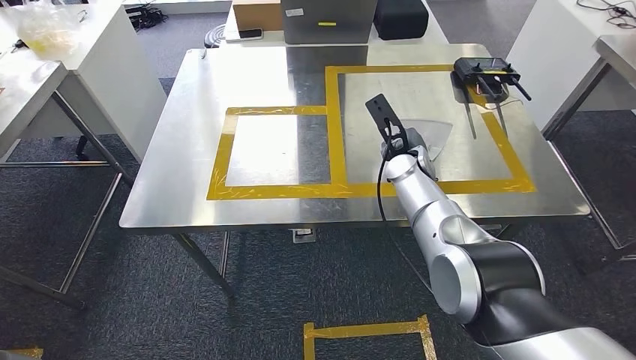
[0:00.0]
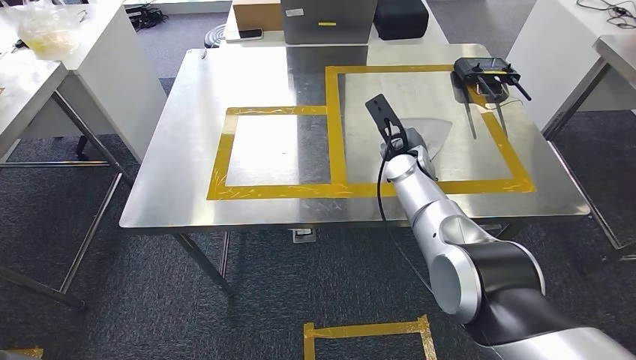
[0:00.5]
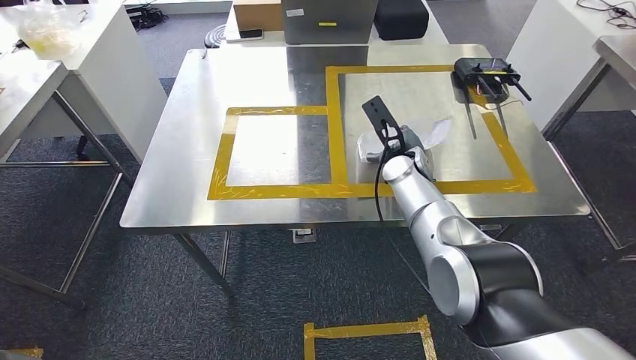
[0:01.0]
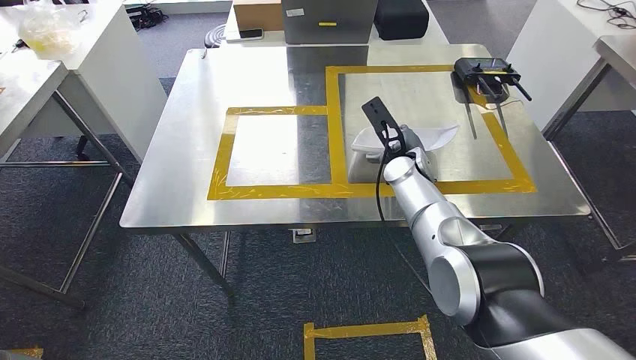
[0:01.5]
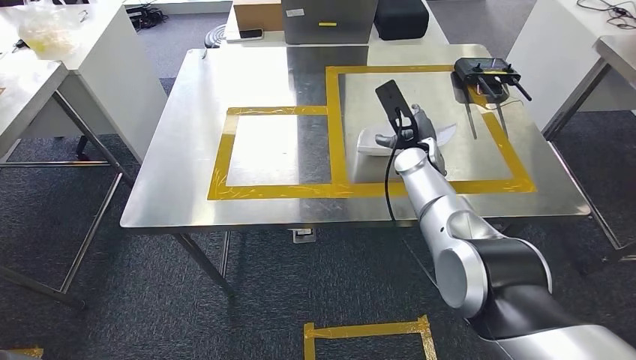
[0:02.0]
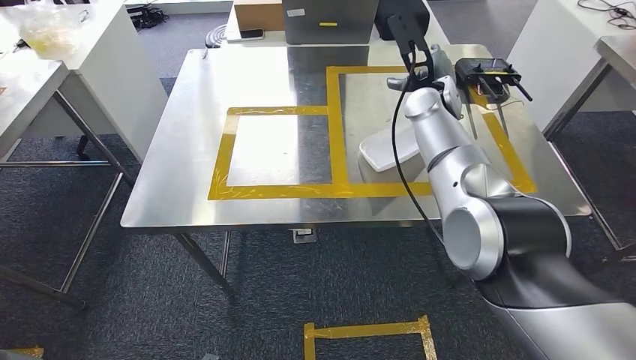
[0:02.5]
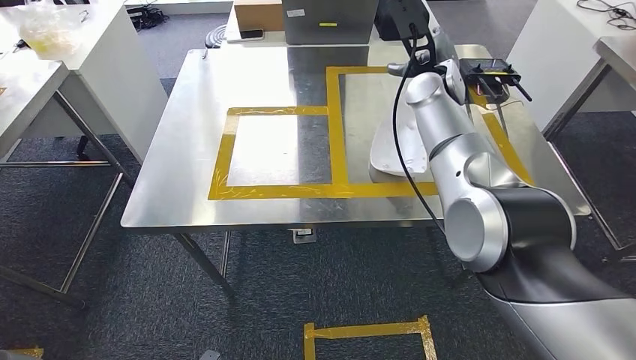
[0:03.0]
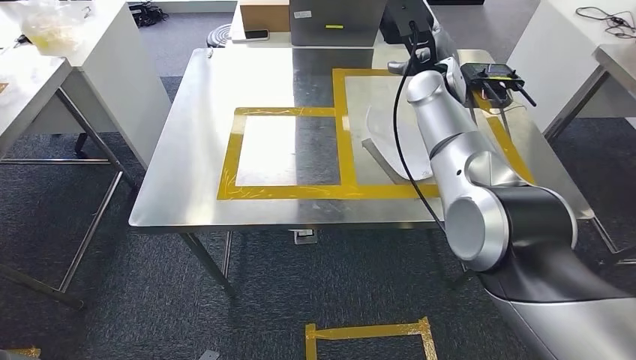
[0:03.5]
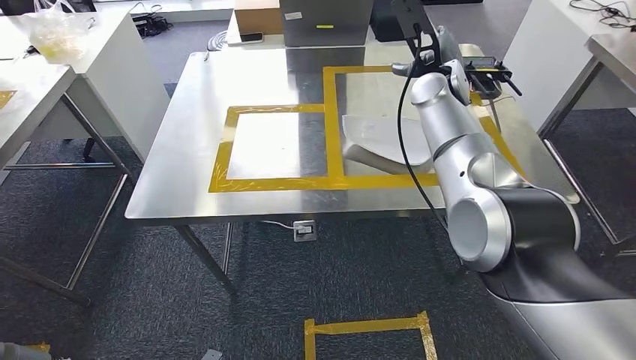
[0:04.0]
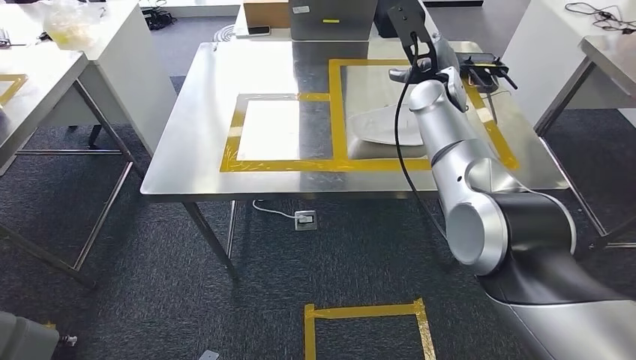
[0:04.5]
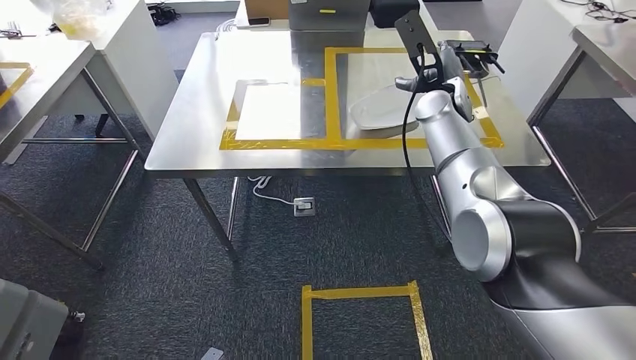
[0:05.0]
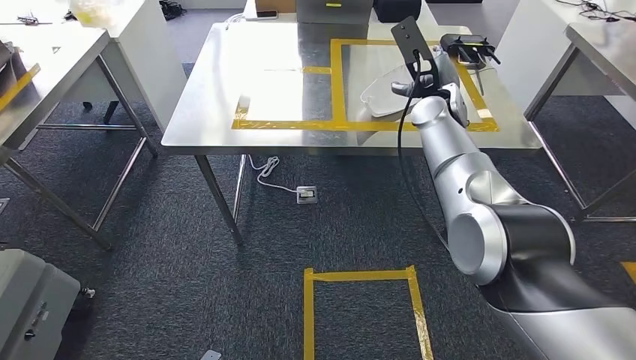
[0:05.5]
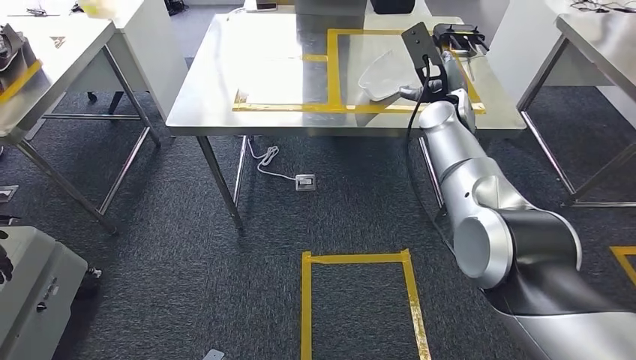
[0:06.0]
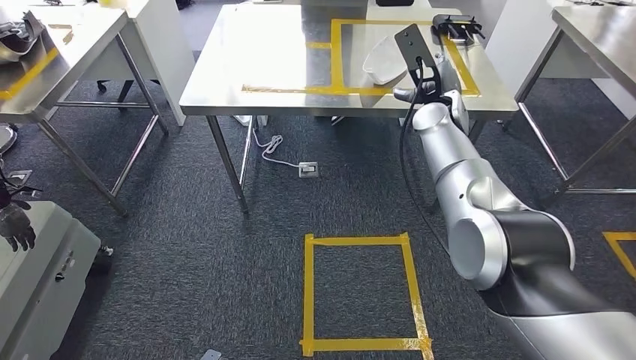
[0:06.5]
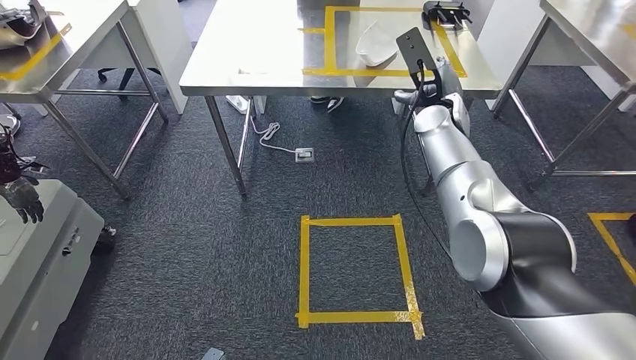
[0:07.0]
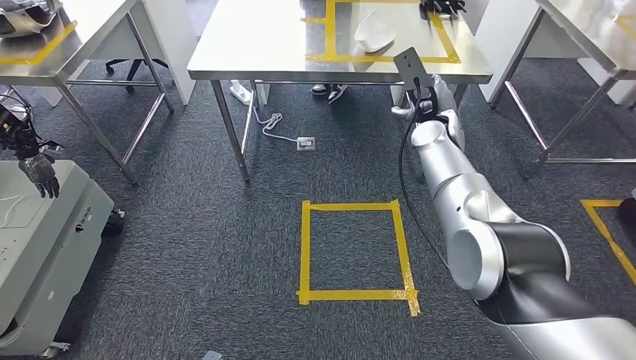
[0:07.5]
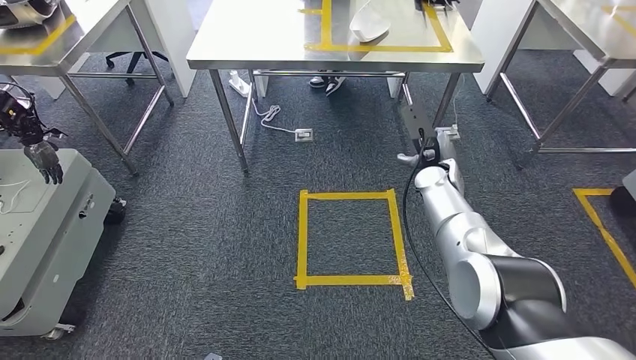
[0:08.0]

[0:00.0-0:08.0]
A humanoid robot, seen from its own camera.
Step, 0:00.0 to 0:03.5: Insert the small component into the corresponding slot on the workbench.
Step, 0:04.0 to 0:08.0: Move to the initial position of the workbench.
0:00.0 to 0:02.0: There are only small adjustments of the hands.
